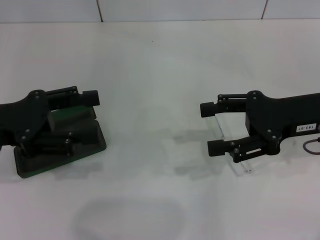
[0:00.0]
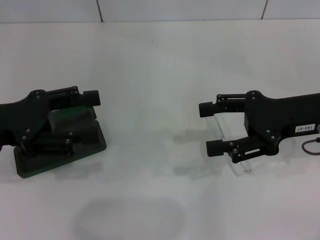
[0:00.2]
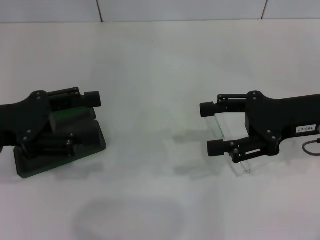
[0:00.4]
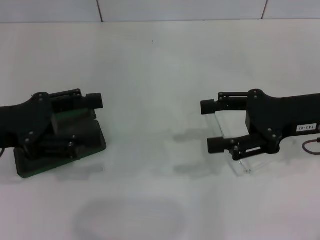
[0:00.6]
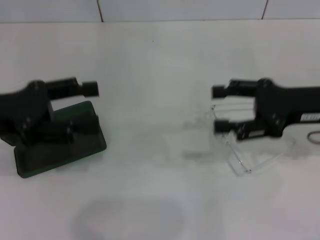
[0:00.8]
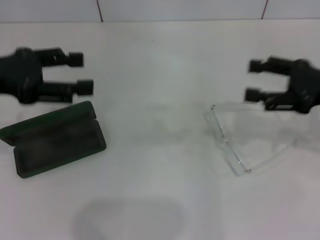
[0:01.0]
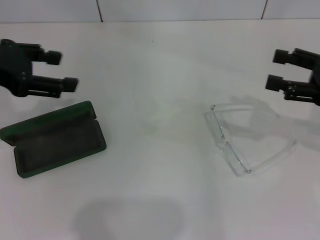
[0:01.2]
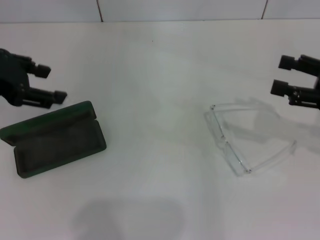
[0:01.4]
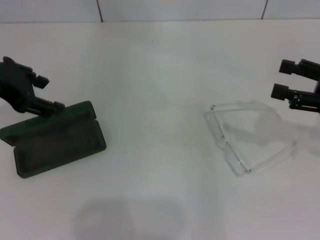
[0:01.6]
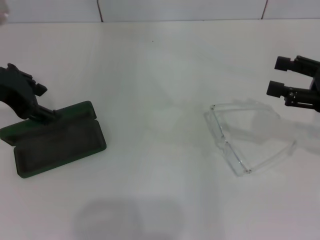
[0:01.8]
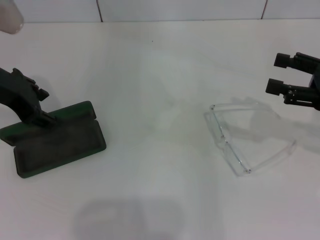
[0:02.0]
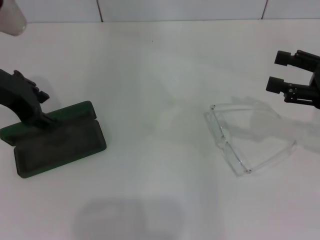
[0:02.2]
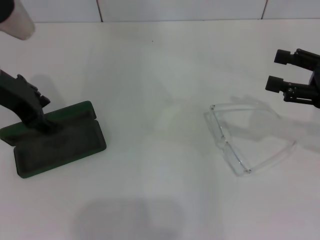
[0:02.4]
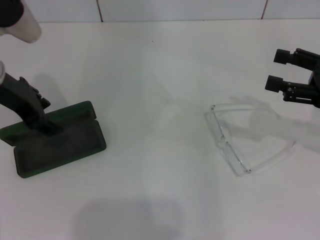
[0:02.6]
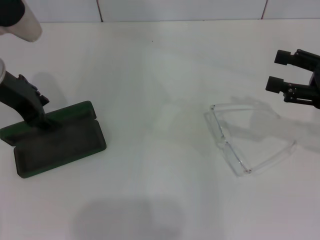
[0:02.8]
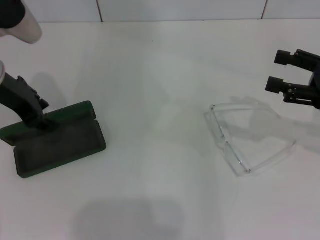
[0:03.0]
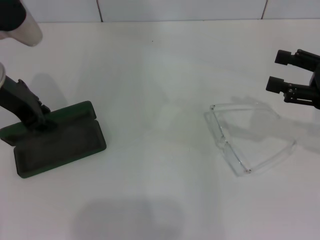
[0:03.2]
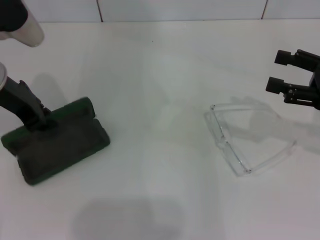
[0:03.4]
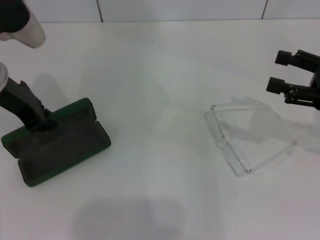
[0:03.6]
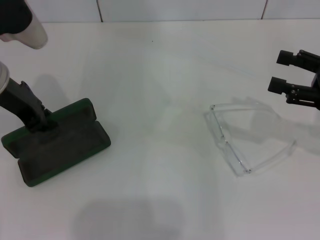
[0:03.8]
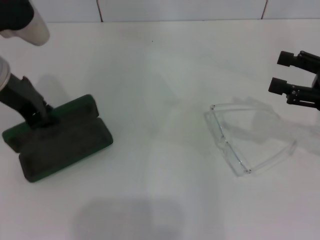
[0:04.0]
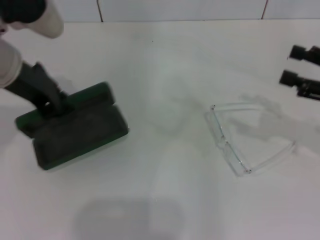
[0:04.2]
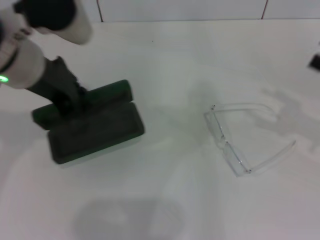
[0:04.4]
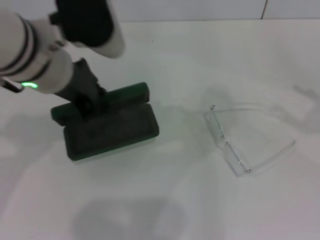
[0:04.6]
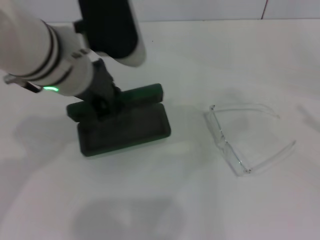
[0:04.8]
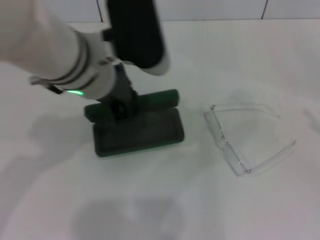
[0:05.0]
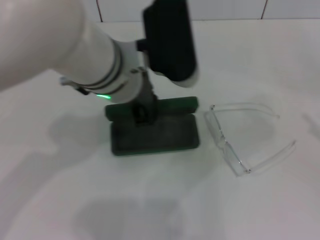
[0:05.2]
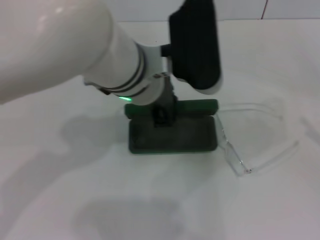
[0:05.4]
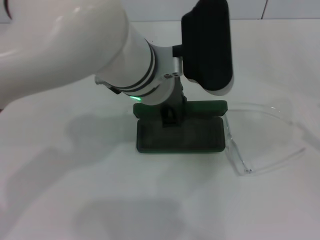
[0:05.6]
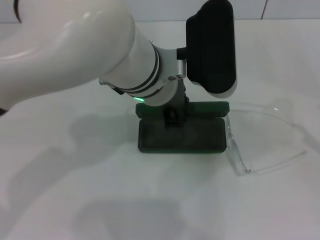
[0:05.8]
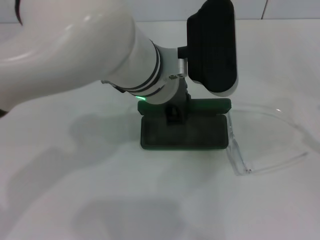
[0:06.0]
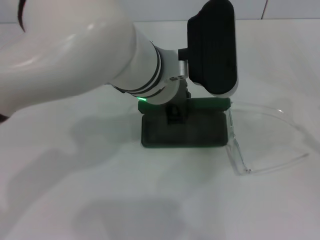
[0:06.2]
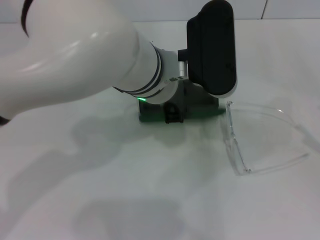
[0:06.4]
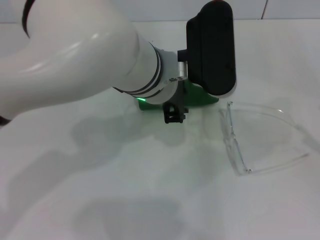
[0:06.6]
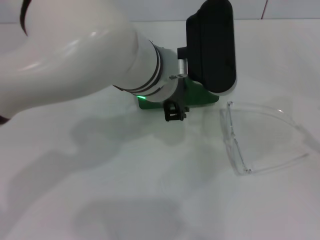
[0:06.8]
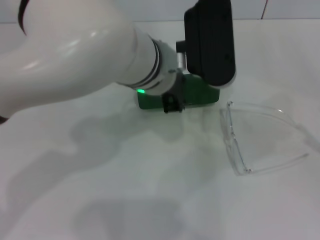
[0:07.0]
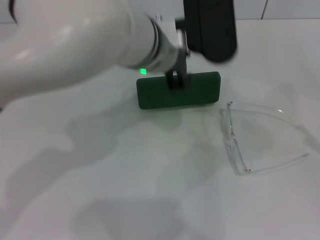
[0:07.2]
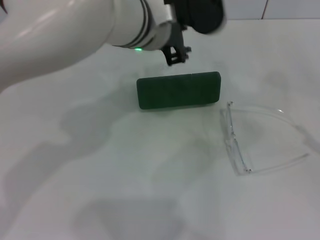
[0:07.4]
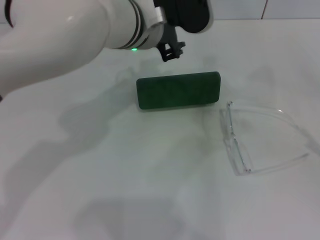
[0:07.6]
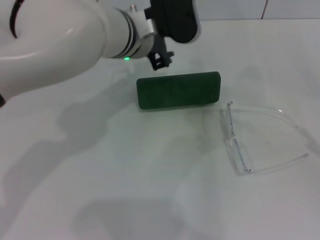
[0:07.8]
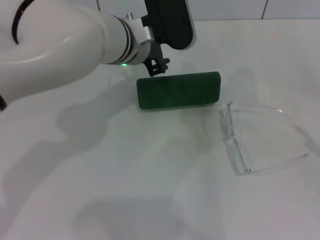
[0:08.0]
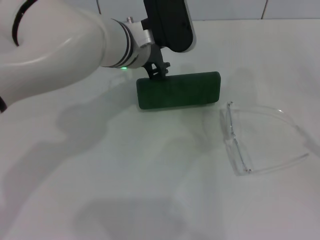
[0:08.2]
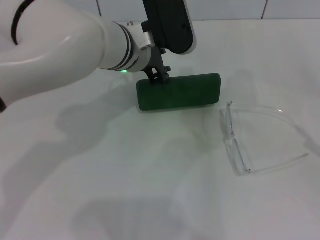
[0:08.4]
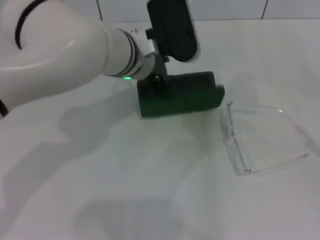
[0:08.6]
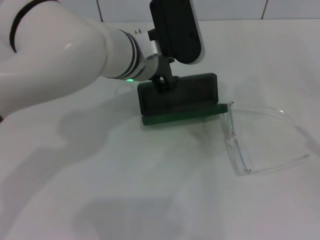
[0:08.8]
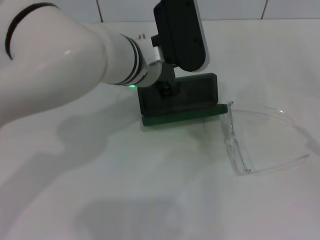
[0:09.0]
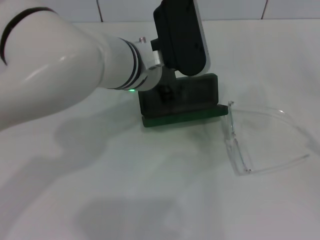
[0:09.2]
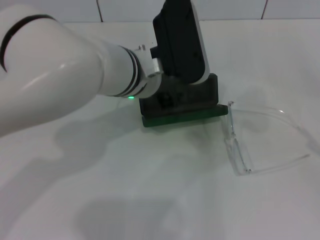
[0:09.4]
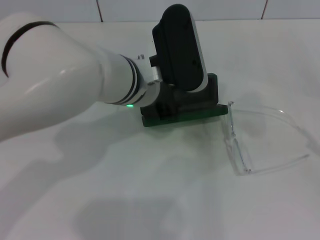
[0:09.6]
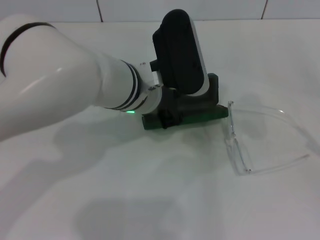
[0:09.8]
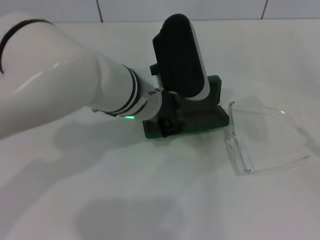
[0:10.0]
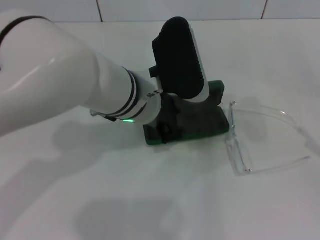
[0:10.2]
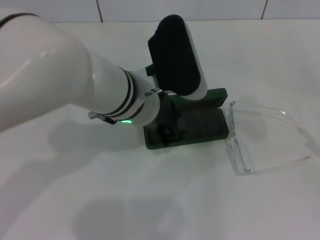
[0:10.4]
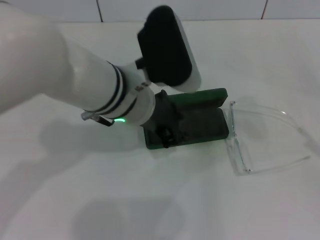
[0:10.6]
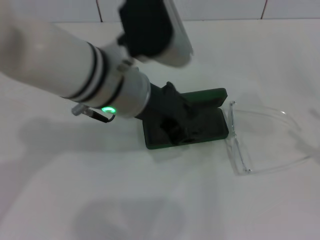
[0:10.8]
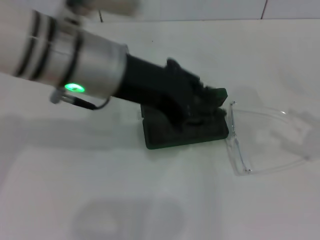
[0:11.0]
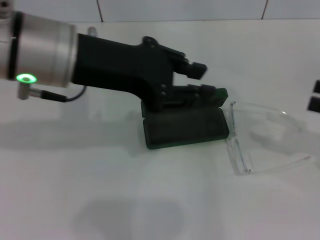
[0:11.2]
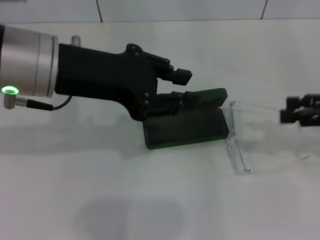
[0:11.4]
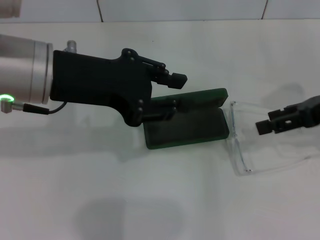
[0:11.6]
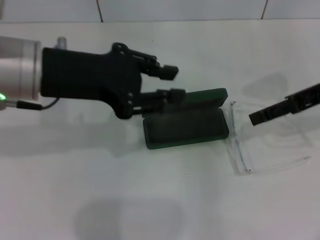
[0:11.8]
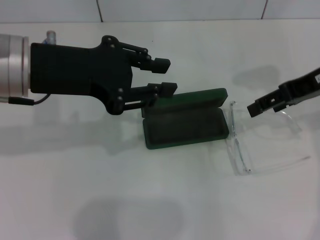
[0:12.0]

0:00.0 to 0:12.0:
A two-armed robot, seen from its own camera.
Step, 0:00.0 to 0:03.2: Grab the glasses case with your left hand.
Step, 0:03.6 to 0:10.4: Place the glasses case in the center of the table with your left hand.
0:00.0 to 0:01.6: The left gripper travels upward and forward by some 10 cm, while the right gripper moves to the right, approximately 10 cm.
0:01.6 to 0:03.0: The left gripper changes place by some 5 cm.
0:03.0 to 0:04.4: The left gripper moves to the right, roughly 5 cm, and closes up.
0:04.4 to 0:06.0: The right gripper is displaced backward by about 10 cm. Meanwhile the left gripper shifts about 15 cm to the right.
0:06.0 to 0:07.6: The left gripper travels forward by roughly 5 cm.
0:07.6 to 0:09.0: The grippers stay close to where they were, moving slightly.
0:09.0 to 0:10.4: The grippers make only small movements.
0:10.4 to 0:12.0: The left gripper shifts approximately 15 cm to the left and upward; the right gripper is displaced forward, to the left and upward by about 25 cm.

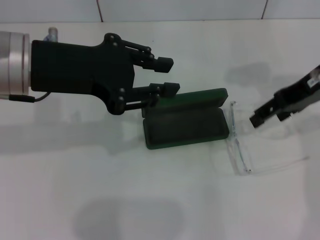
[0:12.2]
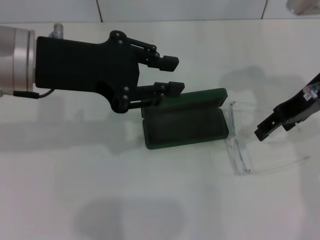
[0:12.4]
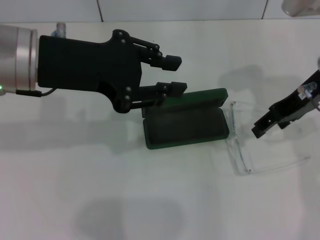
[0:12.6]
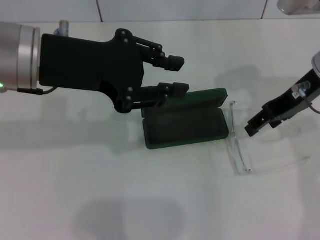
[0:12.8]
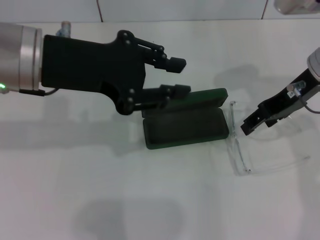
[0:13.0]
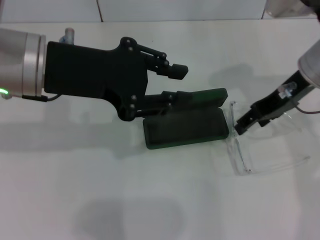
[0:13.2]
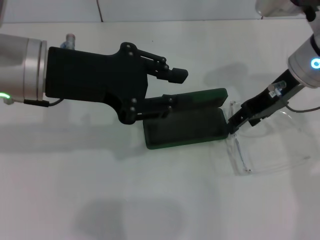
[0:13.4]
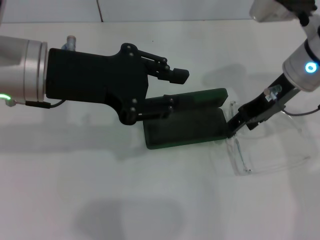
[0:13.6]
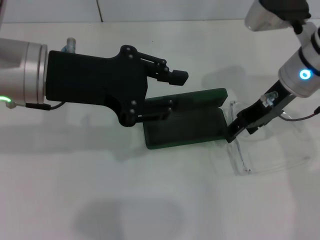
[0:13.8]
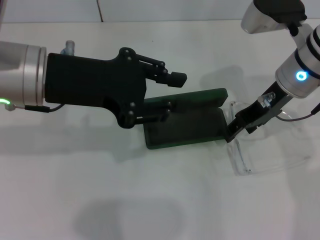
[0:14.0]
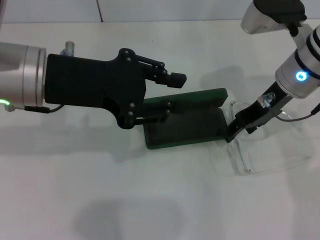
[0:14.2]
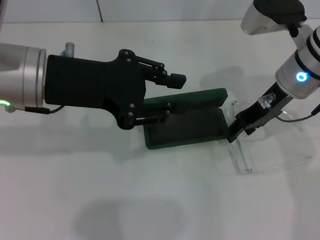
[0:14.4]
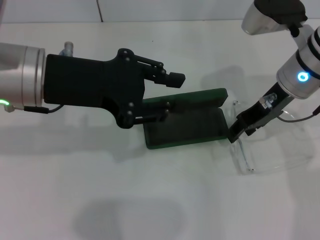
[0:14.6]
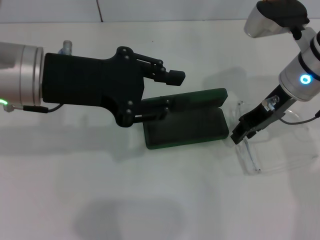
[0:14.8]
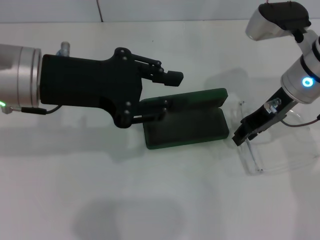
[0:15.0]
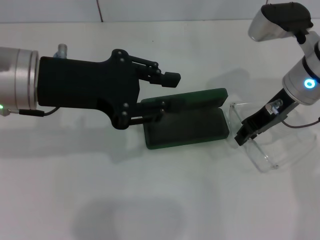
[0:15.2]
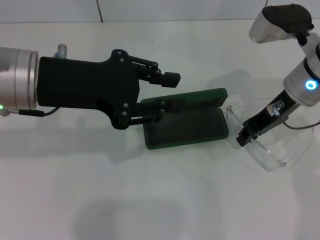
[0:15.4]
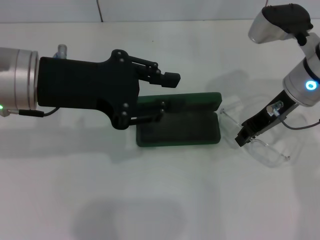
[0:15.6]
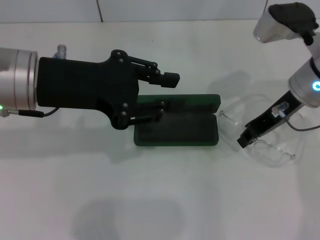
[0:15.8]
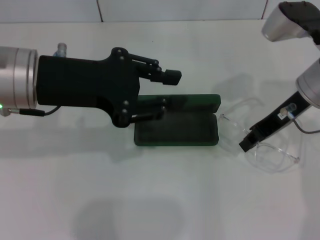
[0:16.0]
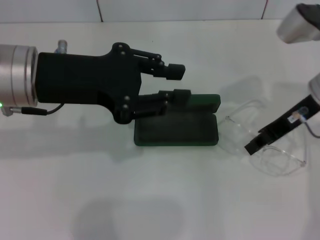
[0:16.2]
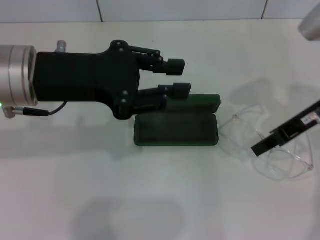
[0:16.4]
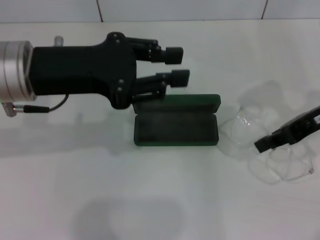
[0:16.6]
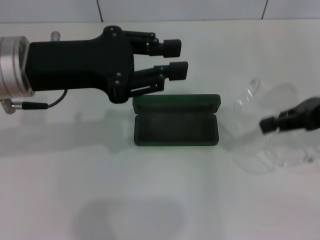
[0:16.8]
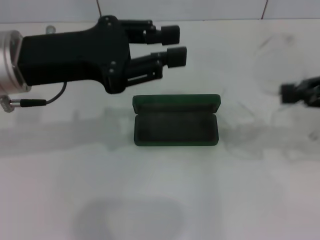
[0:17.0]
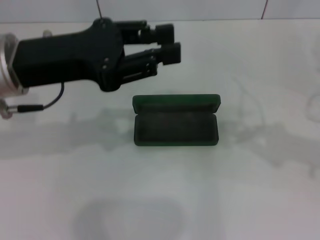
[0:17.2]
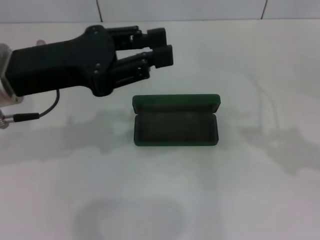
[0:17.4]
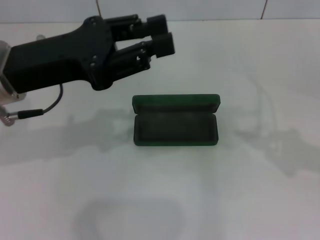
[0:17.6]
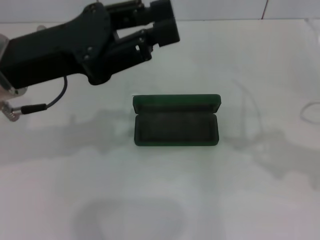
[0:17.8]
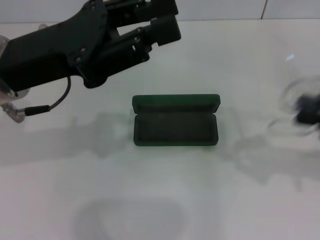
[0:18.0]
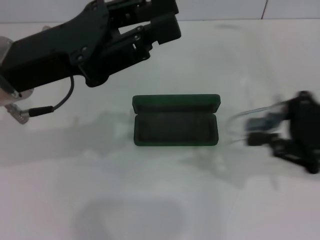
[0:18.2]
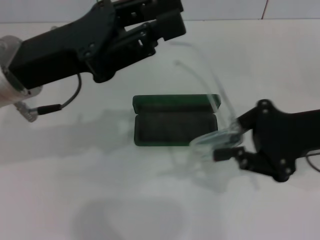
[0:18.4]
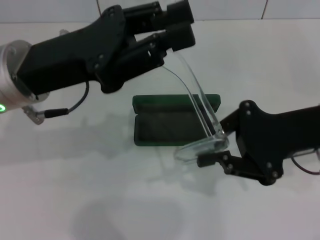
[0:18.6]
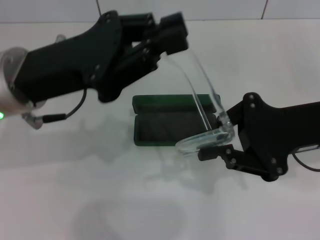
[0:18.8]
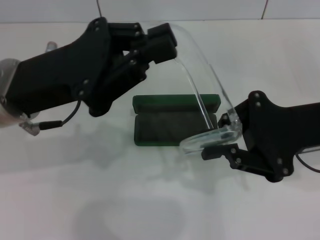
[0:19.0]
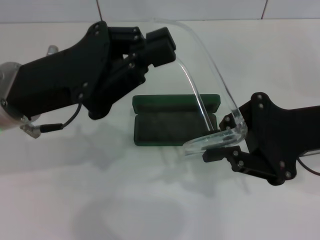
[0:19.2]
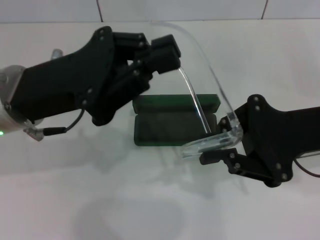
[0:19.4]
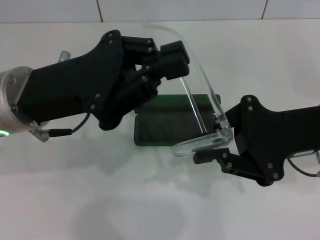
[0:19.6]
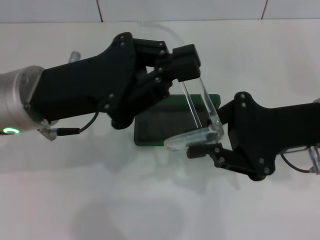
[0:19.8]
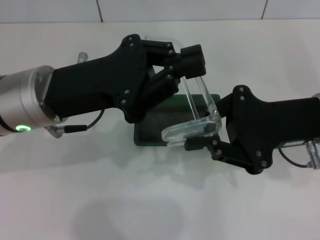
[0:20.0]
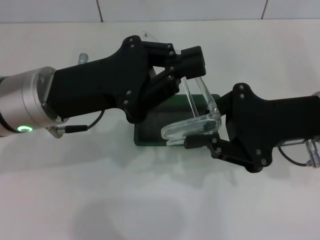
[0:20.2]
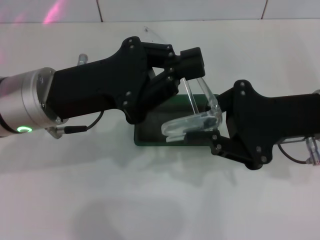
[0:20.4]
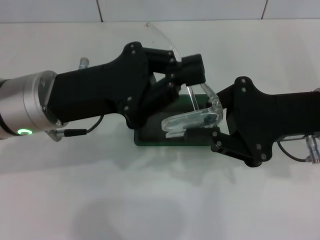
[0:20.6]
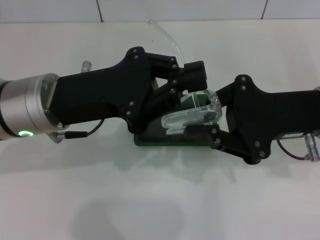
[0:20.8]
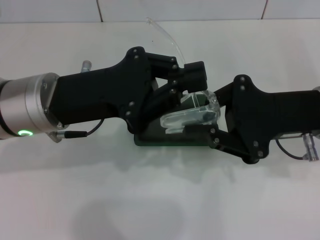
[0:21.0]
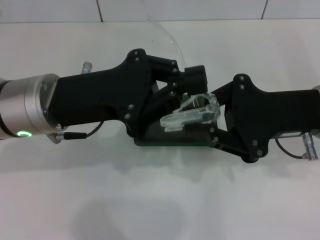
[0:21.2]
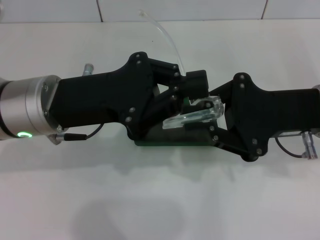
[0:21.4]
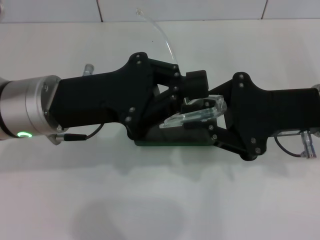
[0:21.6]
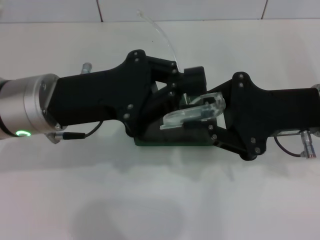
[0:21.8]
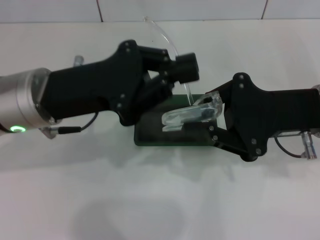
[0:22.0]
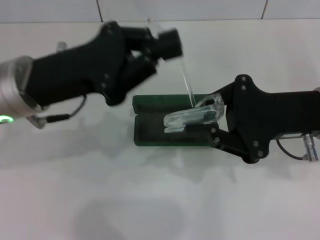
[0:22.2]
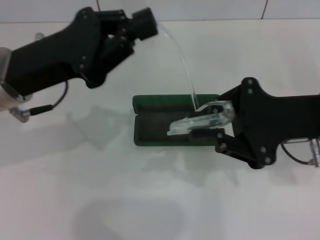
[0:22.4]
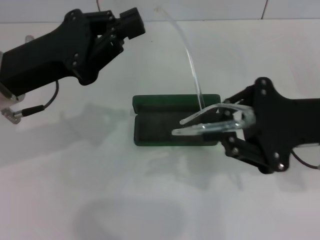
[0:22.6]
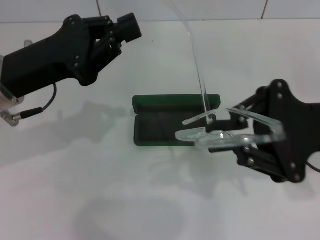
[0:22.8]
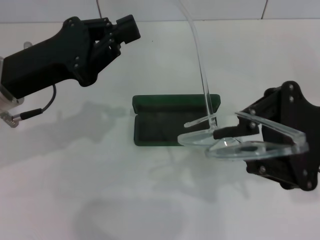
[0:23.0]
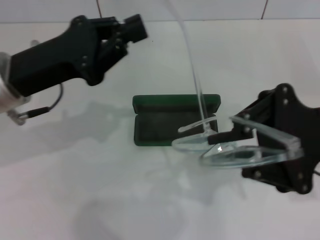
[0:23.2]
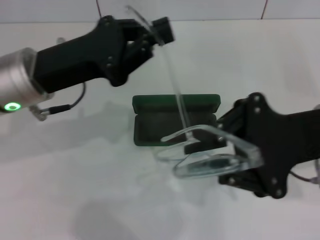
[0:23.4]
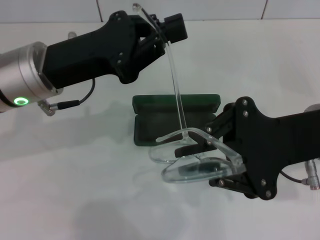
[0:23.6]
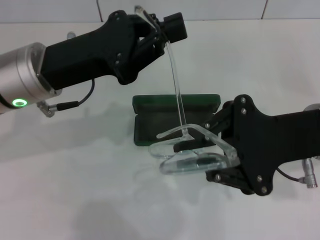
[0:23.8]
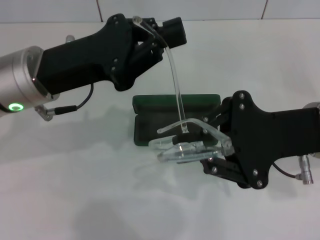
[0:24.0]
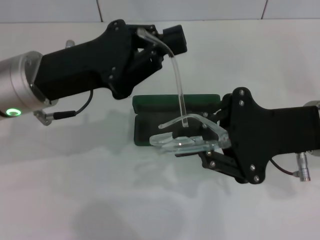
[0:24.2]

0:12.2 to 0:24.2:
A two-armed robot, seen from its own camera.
Step, 0:12.2 to 0:15.6: Grab the eyeglass frame with your right hand.
0:12.2 to 0:13.8: The right gripper goes some 10 cm downward and to the left.
0:13.8 to 0:15.2: The right gripper closes its fingers.
0:15.2 to 0:16.6: The right gripper moves to the right, some 5 cm.
0:16.6 to 0:18.2: The right gripper goes about 5 cm backward, and travels to the right and back again, some 10 cm each way.
0:18.2 to 0:19.8: The right gripper heads to the left, covering some 5 cm. Meanwhile the left gripper closes its fingers.
0:21.2 to 0:22.6: The left gripper changes place by about 5 cm.
